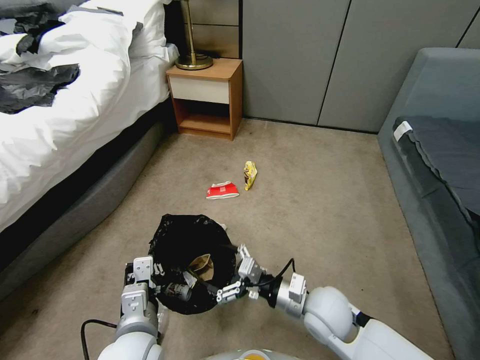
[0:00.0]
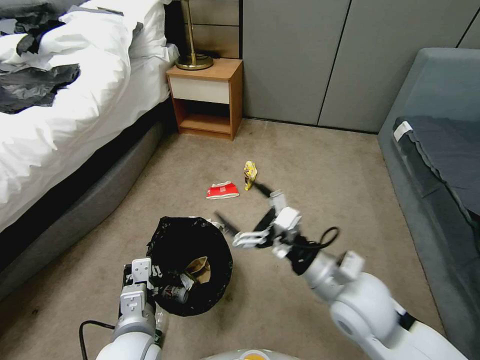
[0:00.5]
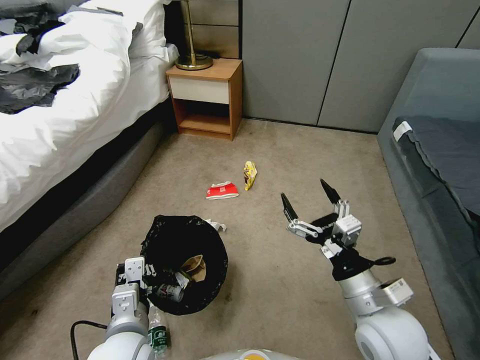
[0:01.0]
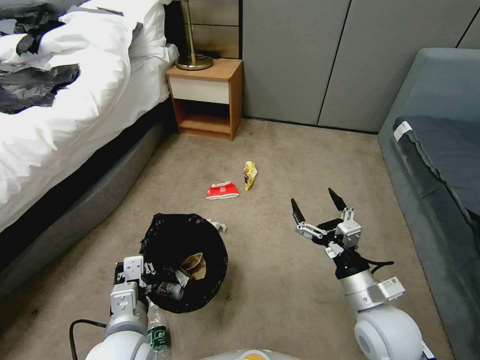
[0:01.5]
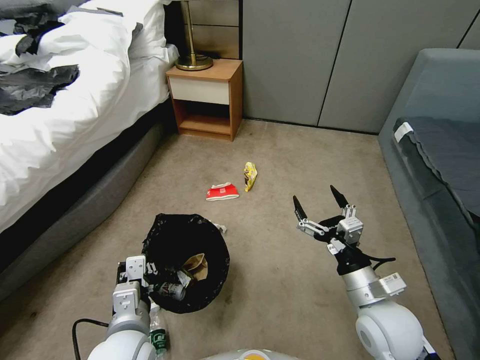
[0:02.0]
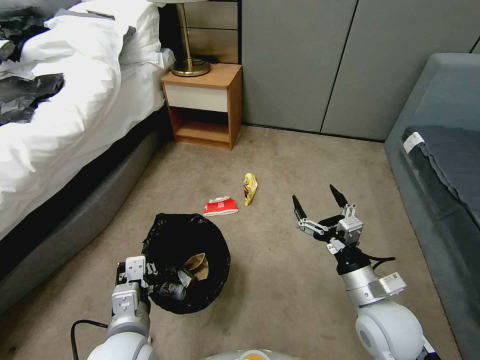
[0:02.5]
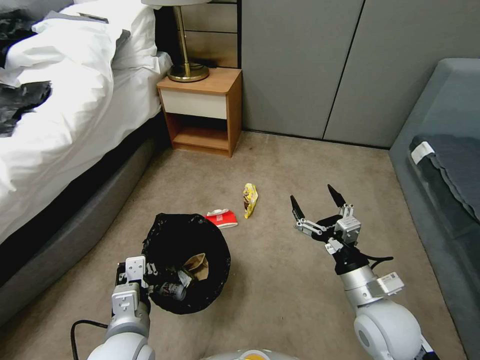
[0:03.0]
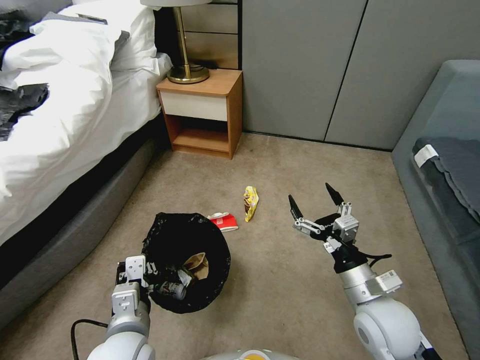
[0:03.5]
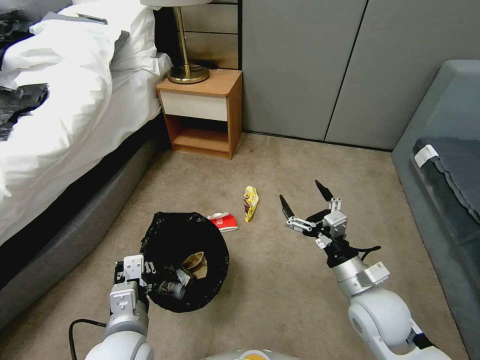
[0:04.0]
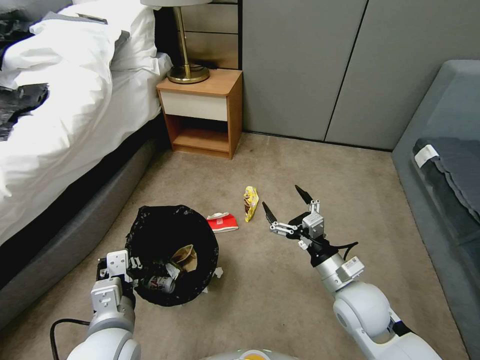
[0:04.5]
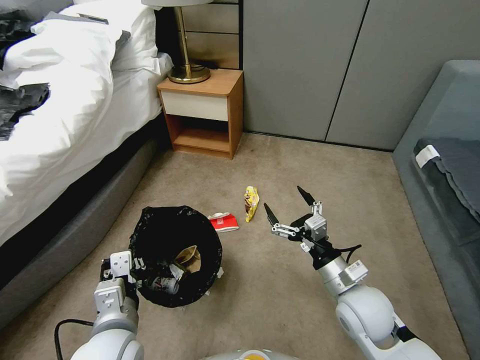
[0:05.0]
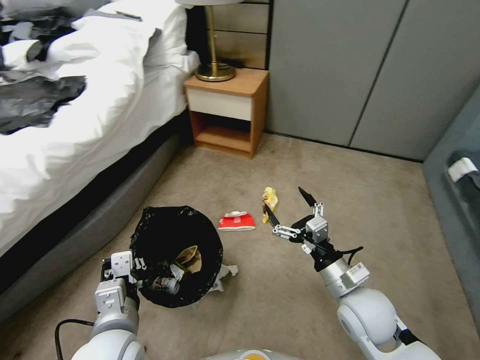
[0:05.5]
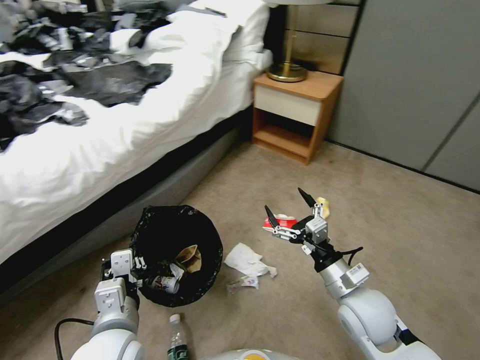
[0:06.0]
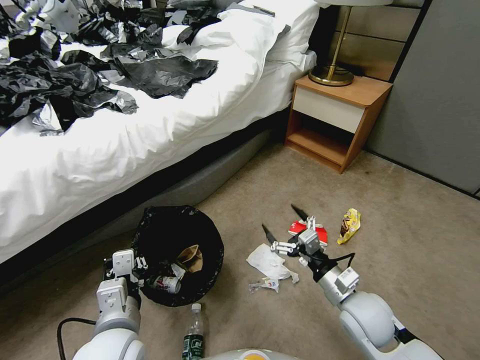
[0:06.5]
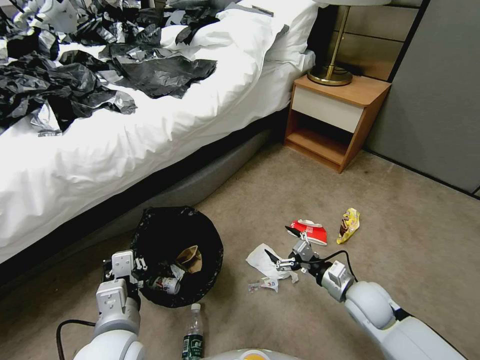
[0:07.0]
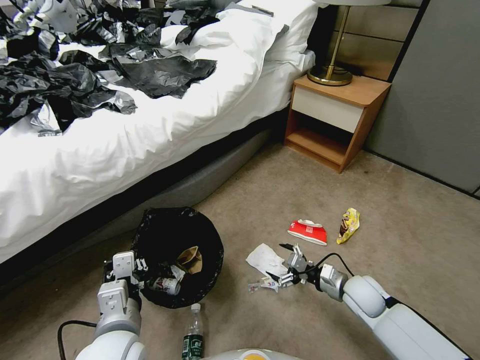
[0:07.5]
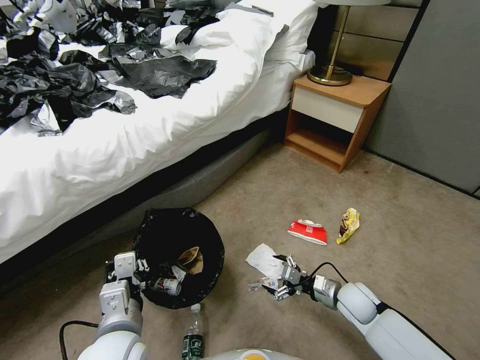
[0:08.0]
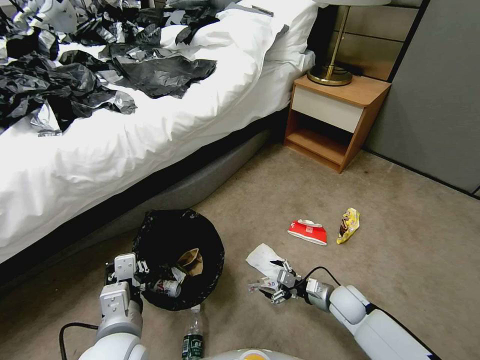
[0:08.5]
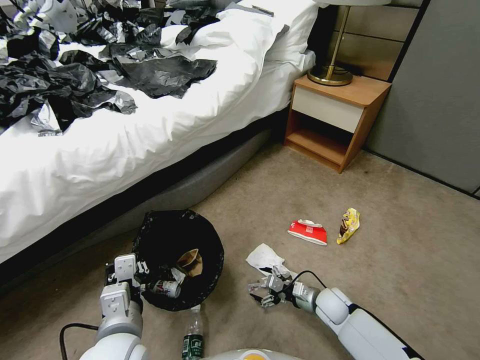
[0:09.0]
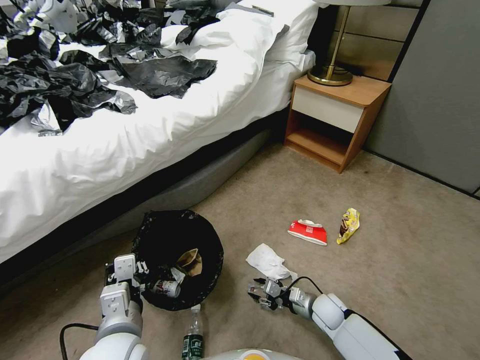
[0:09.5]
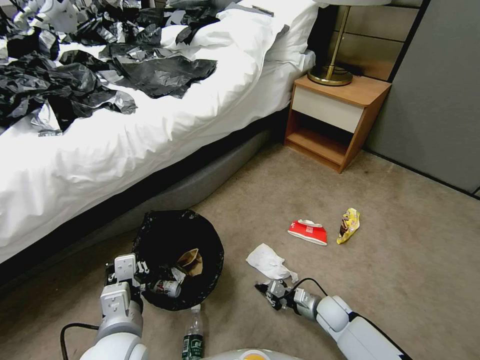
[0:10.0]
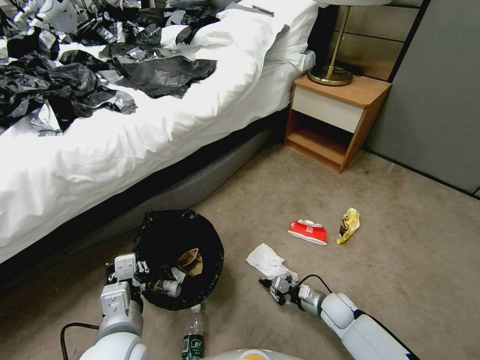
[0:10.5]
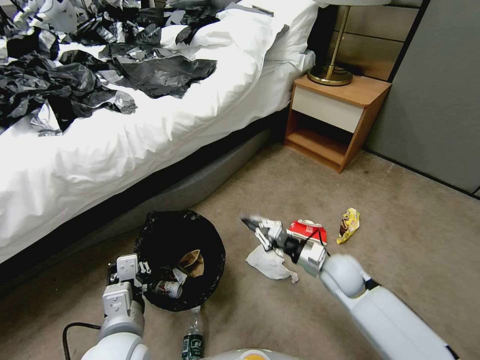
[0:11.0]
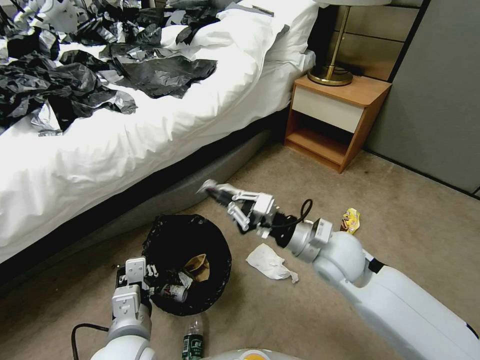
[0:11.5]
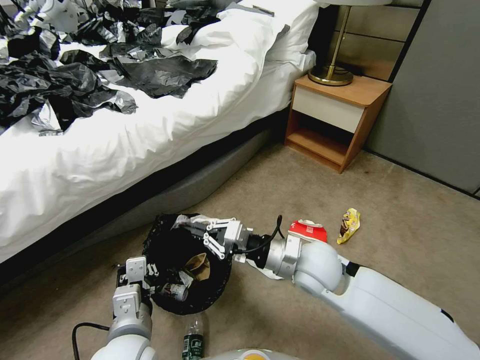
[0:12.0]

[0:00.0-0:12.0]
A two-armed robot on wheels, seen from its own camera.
Task of the whole recording: Pick up the trash bin, then pick up the garbage from the floor and place it into the trash bin.
0:00.0 to 0:02.0: The right gripper goes some 10 cm to the right and upward.
0:06.0 to 0:08.0: The right gripper is displaced downward by some 15 cm.
0:08.0 to 0:10.0: The right gripper moves downward, about 10 cm, and closes.
0:10.0 to 0:12.0: The right gripper goes approximately 30 cm upward and to the left.

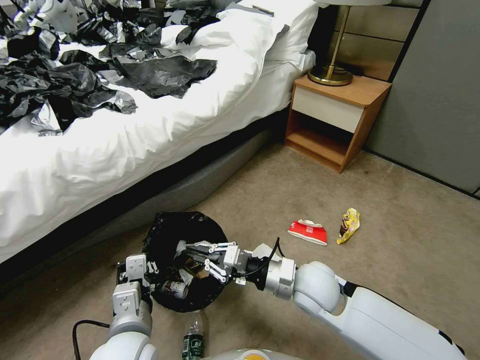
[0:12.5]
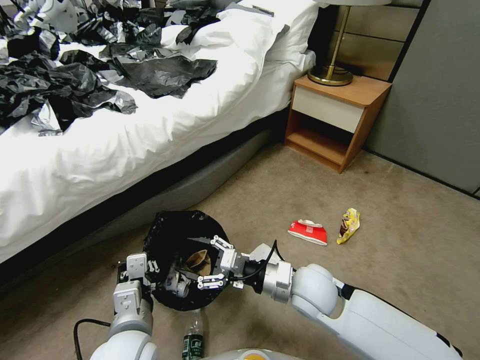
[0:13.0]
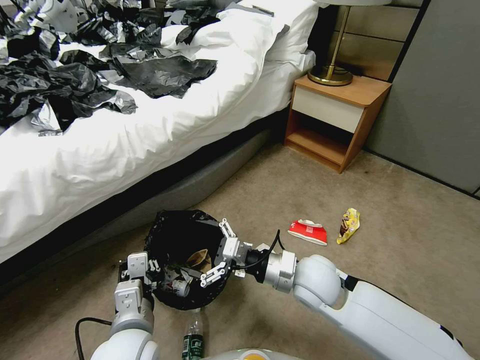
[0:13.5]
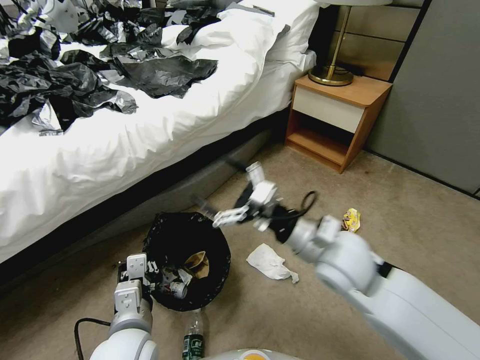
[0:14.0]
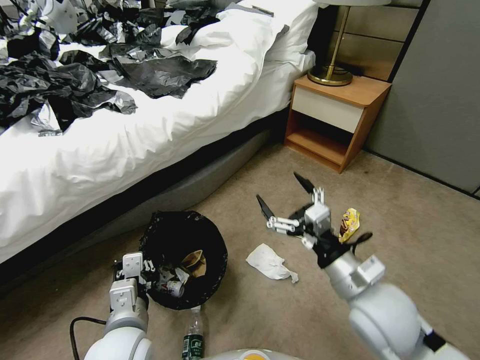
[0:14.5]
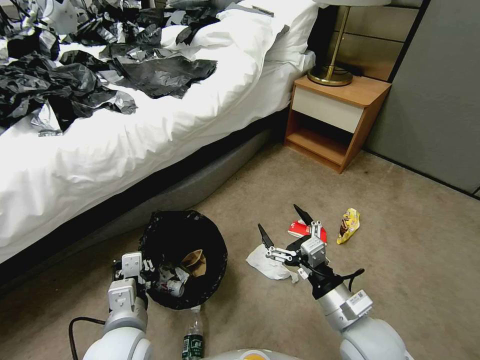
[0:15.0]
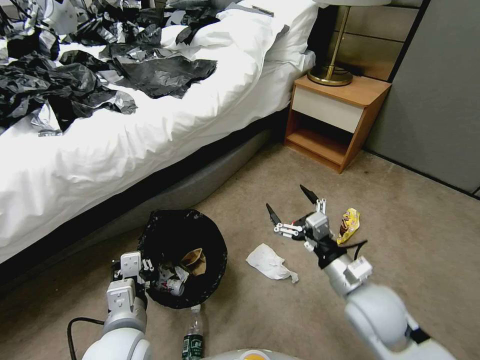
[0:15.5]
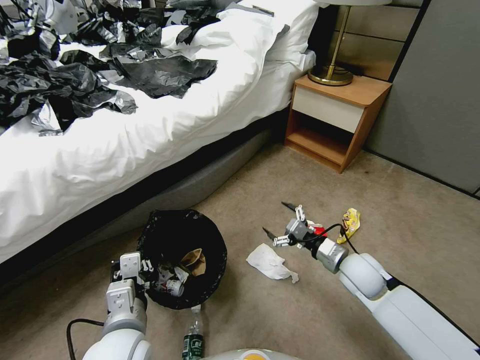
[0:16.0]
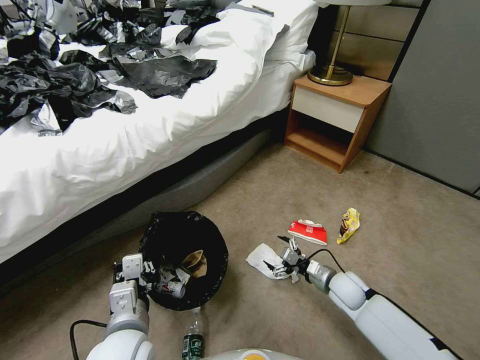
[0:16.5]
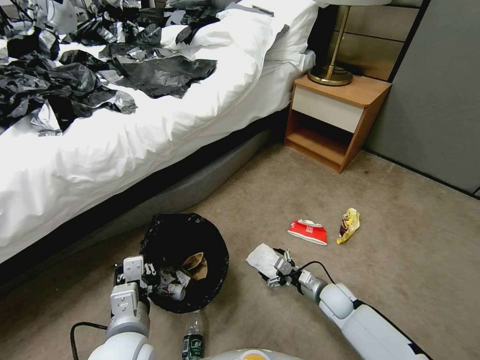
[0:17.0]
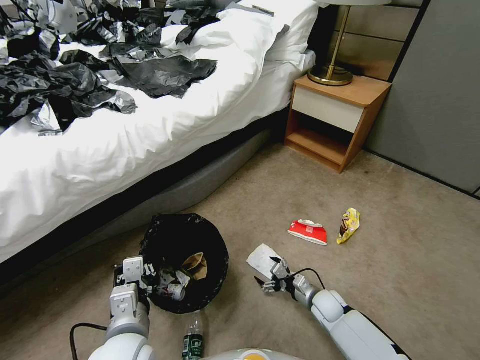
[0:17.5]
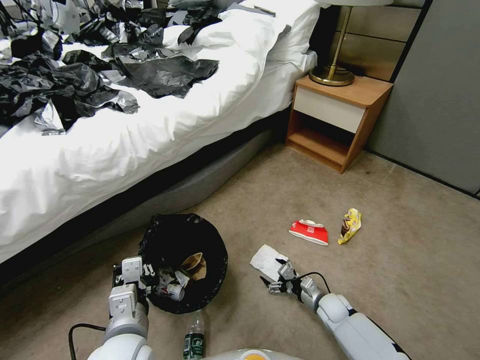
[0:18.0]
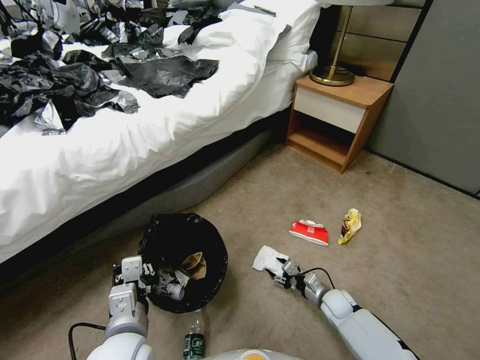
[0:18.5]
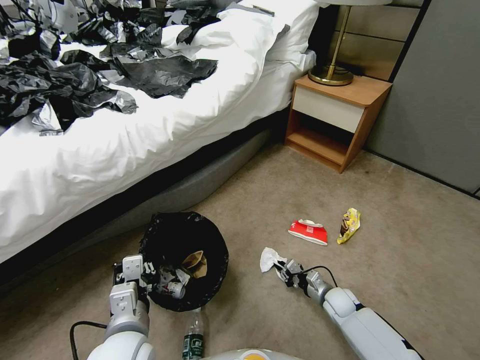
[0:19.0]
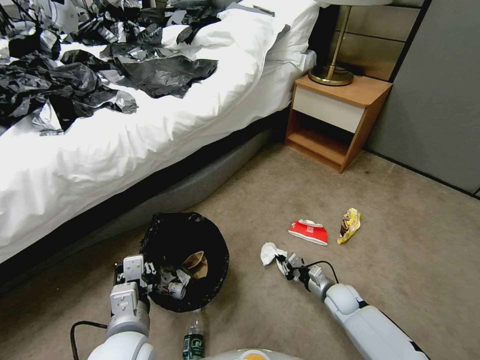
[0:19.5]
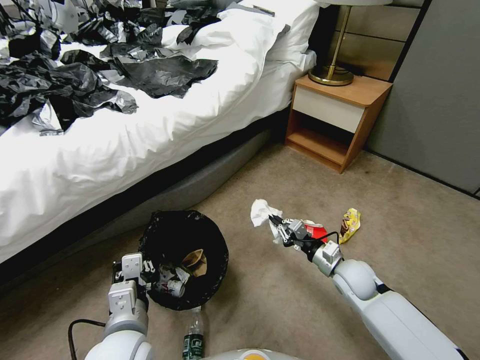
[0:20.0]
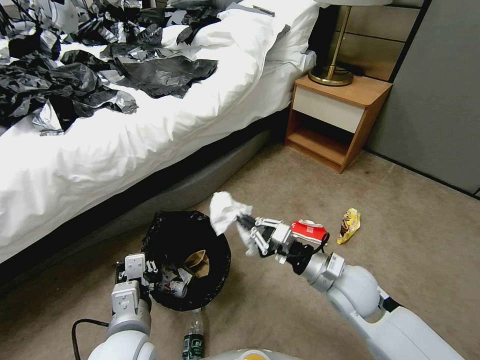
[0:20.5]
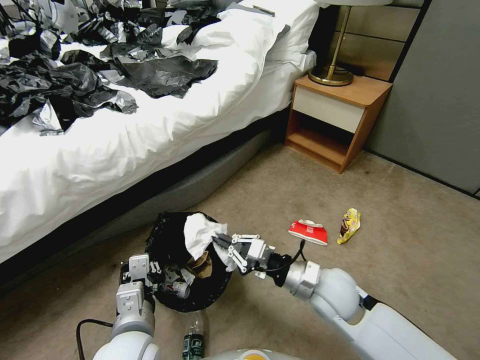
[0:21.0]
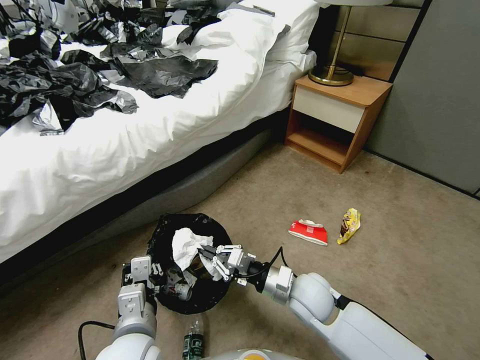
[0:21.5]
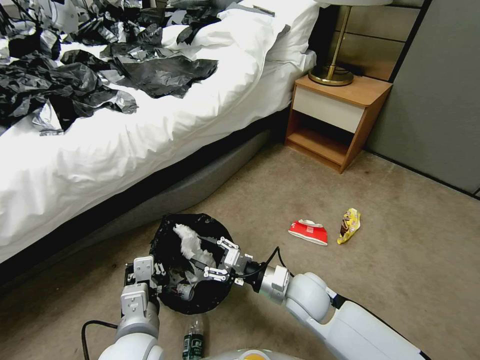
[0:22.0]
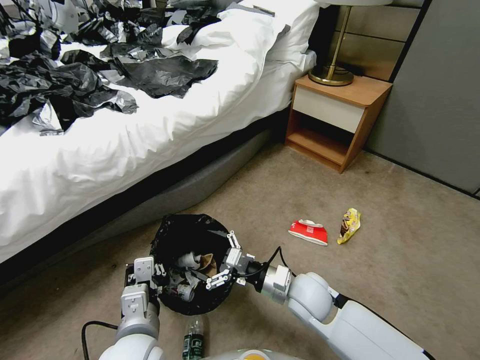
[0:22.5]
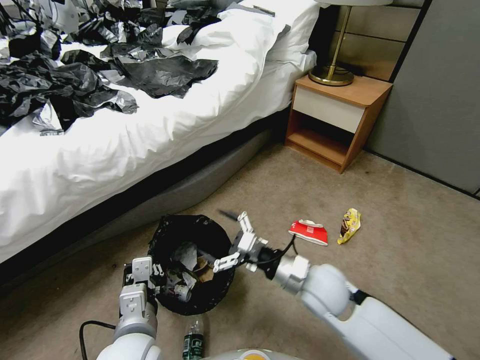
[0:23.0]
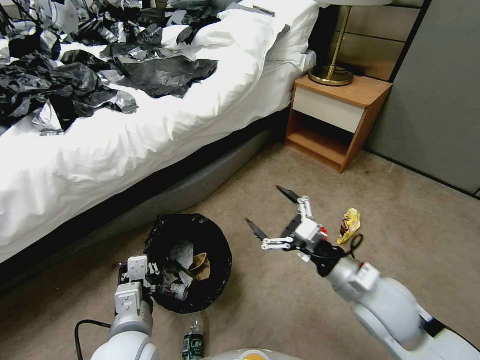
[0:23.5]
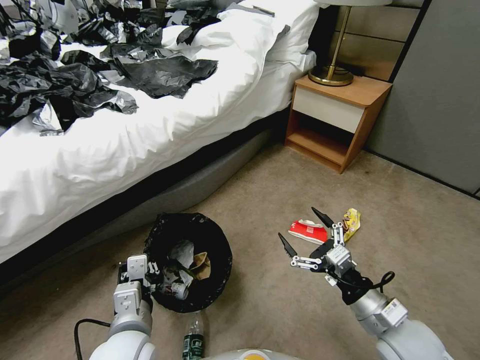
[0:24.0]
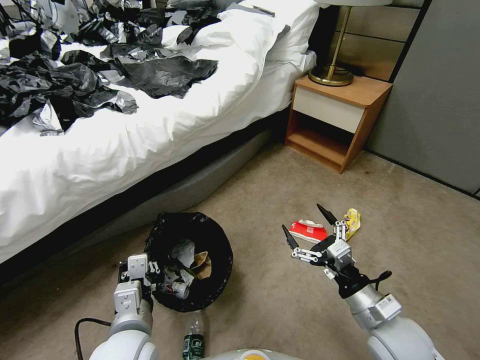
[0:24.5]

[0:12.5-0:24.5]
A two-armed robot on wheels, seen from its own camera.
Task of the whole recording: Pick up the trash bin, then pick up the garbage from the floor and place it into the trash bin.
0:12.5 to 0:14.5: The right gripper moves upward, to the right and backward, approximately 15 cm, and opens.
0:14.5 to 0:16.5: The right gripper moves downward and forward, roughly 25 cm.
0:16.5 to 0:18.5: The right gripper shifts about 10 cm downward, and closes its fingers.
0:18.5 to 0:20.5: The right gripper moves upward, some 25 cm, and closes its fingers.
0:20.5 to 0:22.5: The right gripper goes some 10 cm to the left and downward, and opens its fingers.
0:22.5 to 0:24.5: The right gripper travels to the right and backward by about 15 cm.

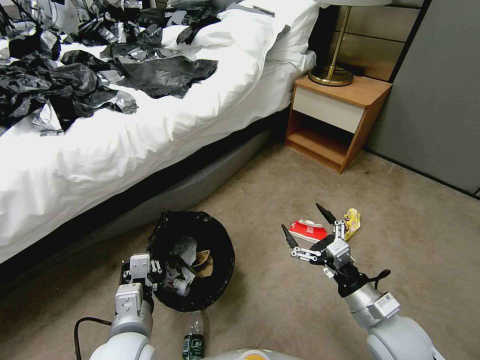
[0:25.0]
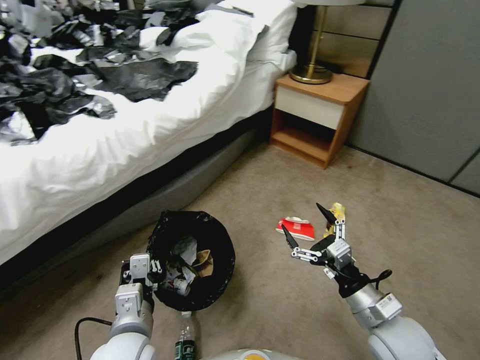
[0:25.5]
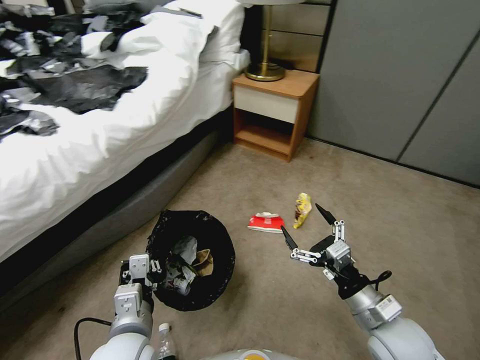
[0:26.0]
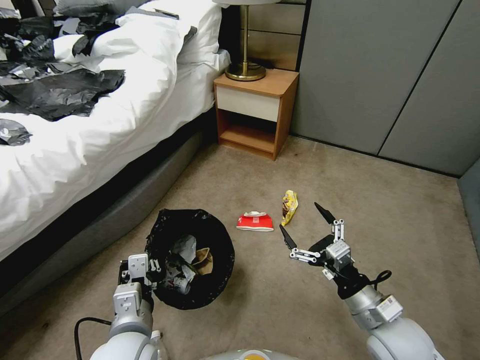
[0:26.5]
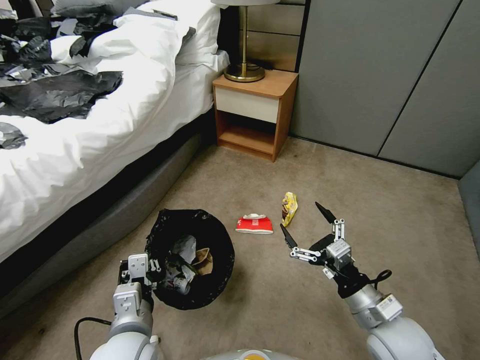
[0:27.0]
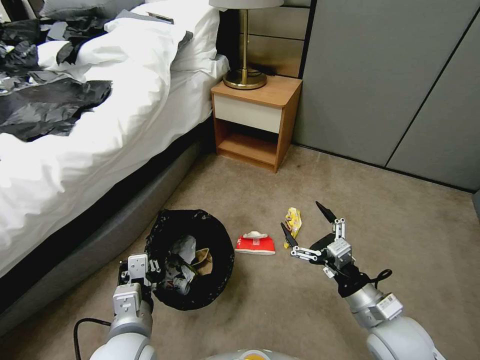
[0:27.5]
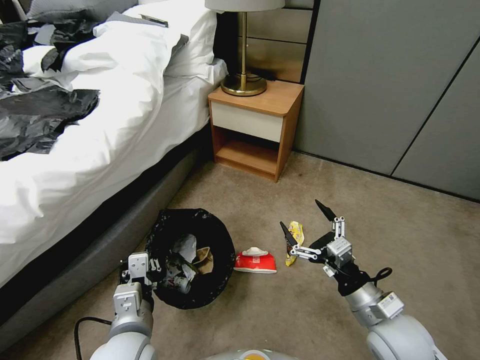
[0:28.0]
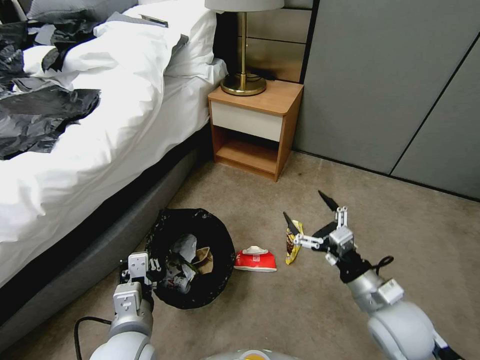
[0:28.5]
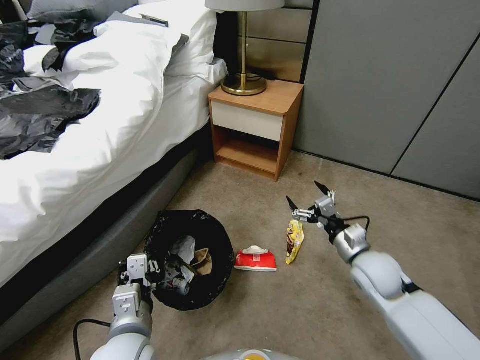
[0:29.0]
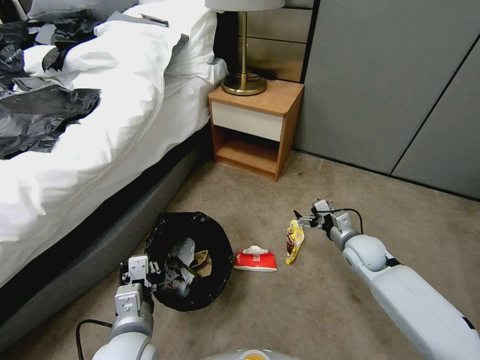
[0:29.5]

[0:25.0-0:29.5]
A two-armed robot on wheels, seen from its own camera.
Task of the whole recording: Pick up the trash bin, then pick up the garbage from the floor and place it into the trash bin.
0:27.0 to 0:29.5: The right gripper heads forward, covering some 20 cm.
